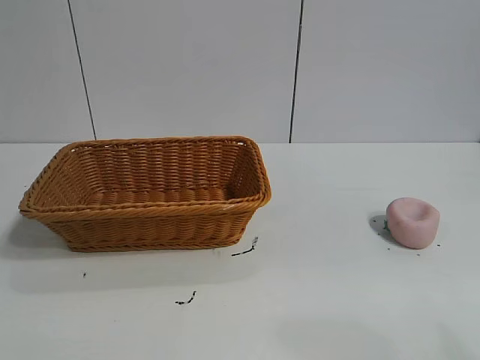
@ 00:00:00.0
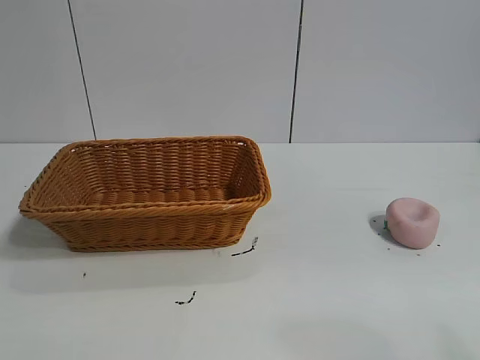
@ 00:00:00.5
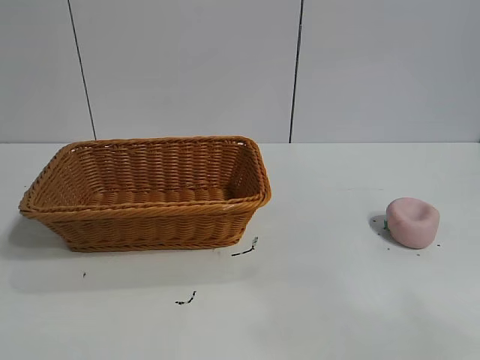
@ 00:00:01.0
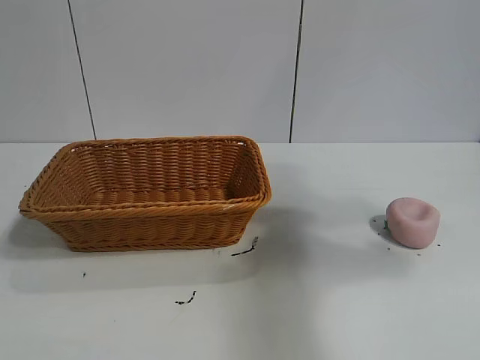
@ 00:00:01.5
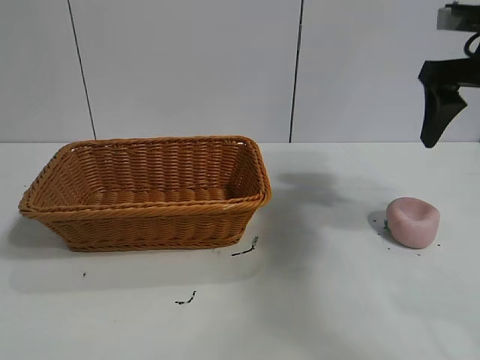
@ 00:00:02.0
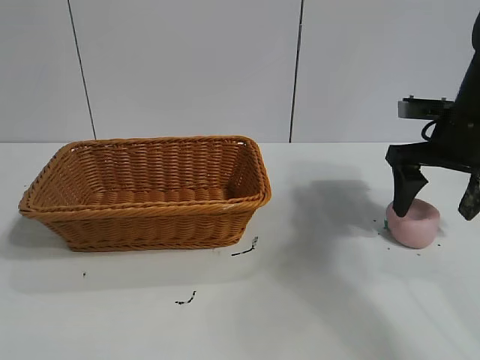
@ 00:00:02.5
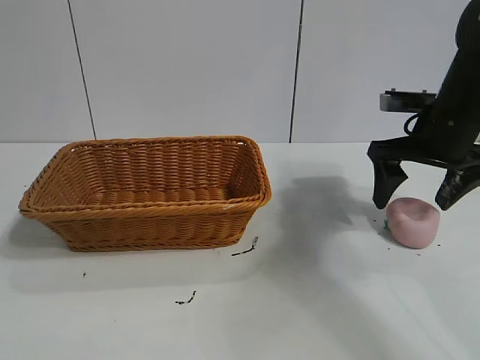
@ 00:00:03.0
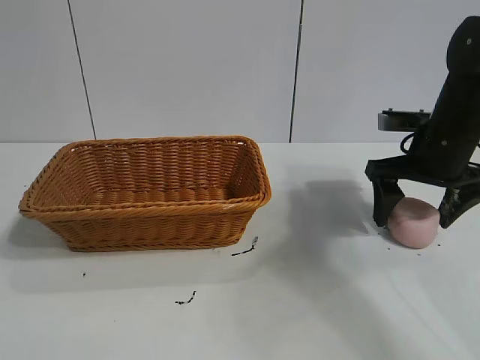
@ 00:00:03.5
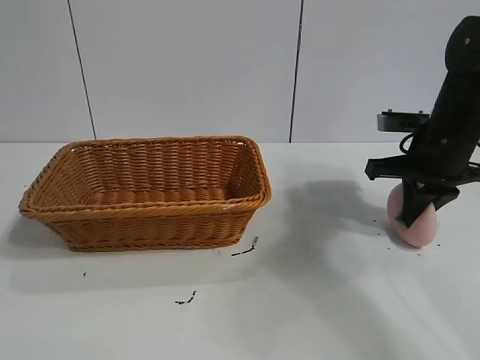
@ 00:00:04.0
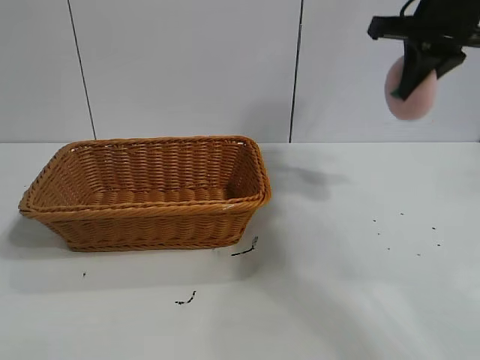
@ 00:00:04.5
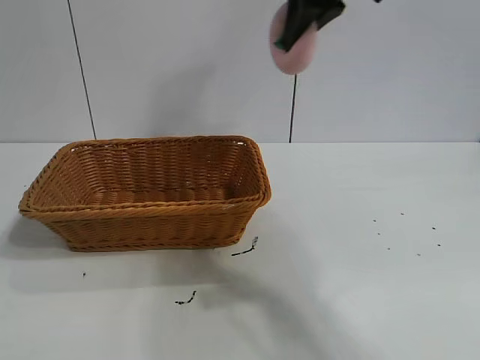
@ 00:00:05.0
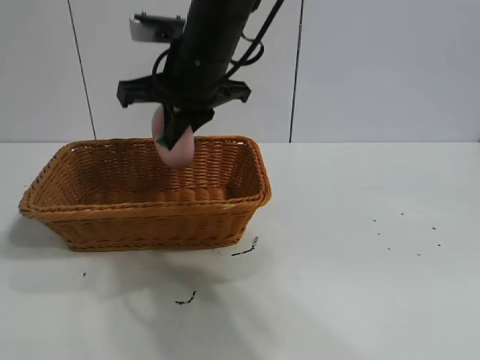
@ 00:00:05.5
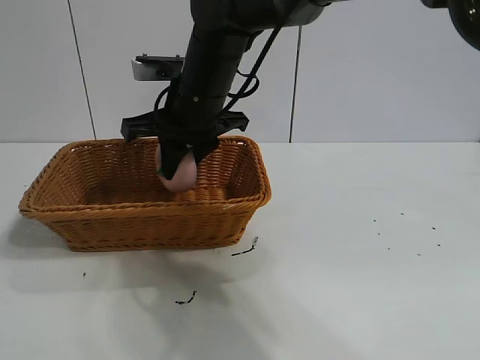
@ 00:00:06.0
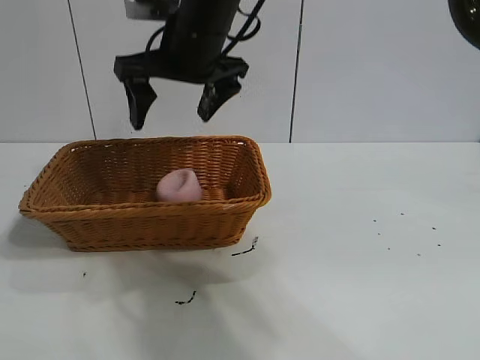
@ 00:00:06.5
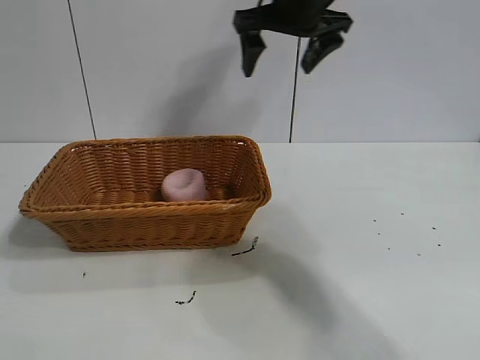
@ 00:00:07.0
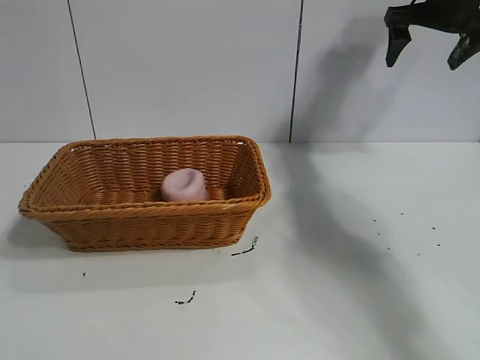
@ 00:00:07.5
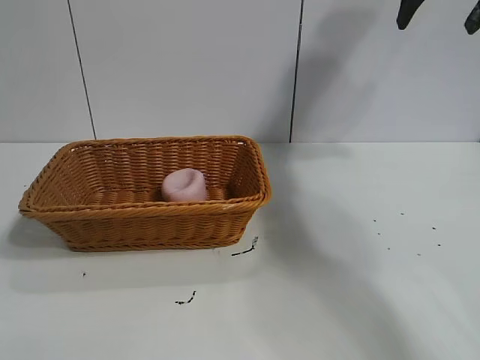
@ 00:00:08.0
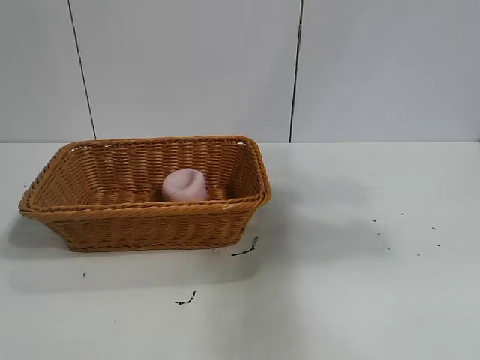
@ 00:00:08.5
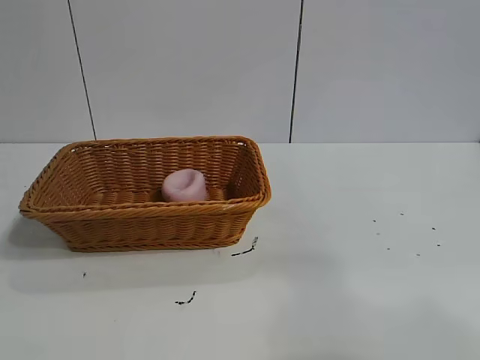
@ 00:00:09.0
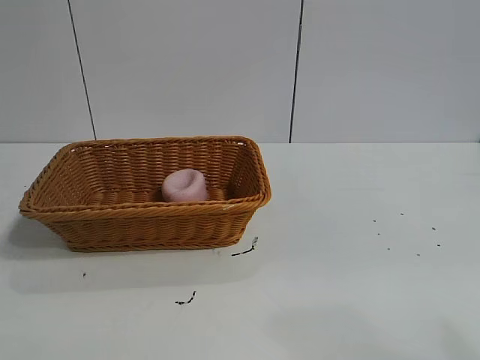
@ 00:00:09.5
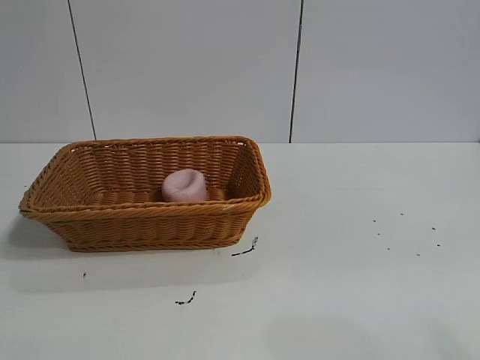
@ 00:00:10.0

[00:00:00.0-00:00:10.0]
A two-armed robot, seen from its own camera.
Task of the whole recording: pick up the peach and put it into the basket.
Step, 00:00:01.0 to 00:00:03.5: Grasp the peach with right gripper.
Step, 00:00:04.0 to 00:00:06.0: Place the peach in the basket with right gripper.
